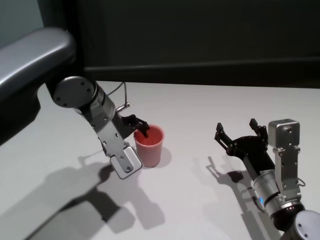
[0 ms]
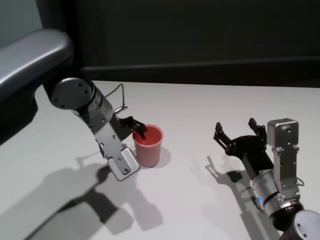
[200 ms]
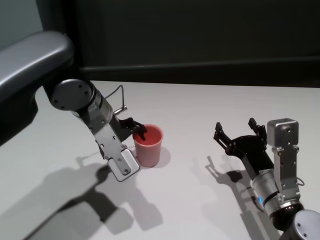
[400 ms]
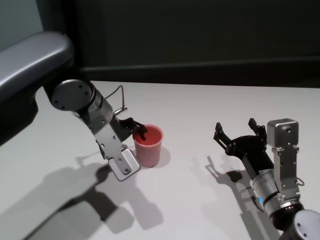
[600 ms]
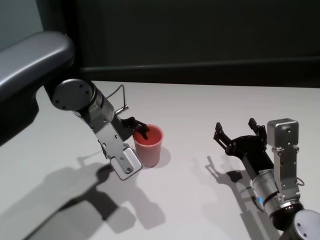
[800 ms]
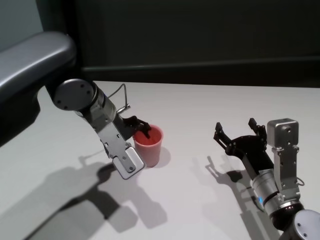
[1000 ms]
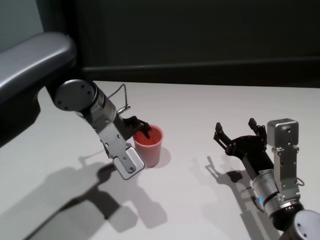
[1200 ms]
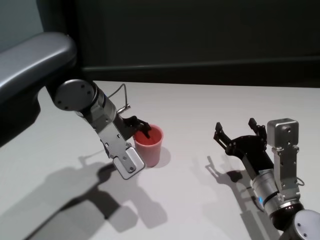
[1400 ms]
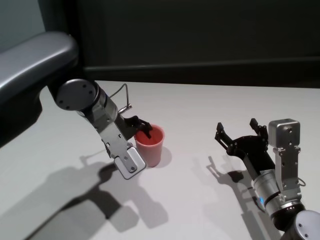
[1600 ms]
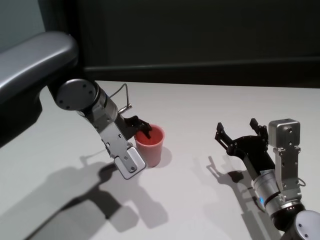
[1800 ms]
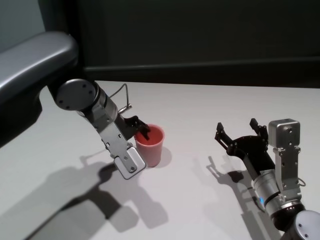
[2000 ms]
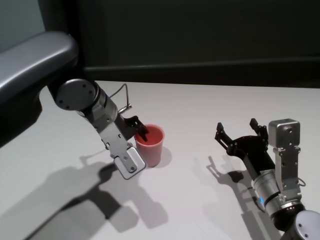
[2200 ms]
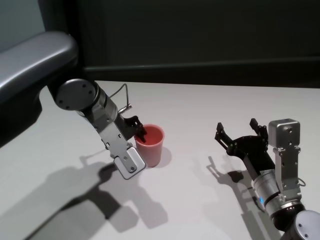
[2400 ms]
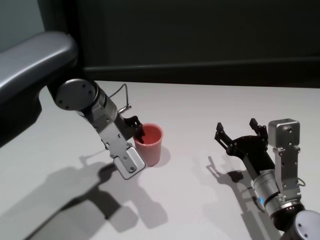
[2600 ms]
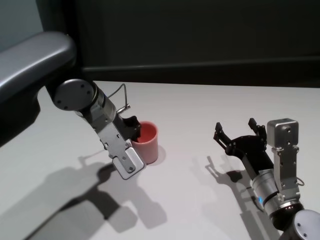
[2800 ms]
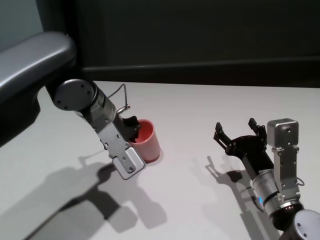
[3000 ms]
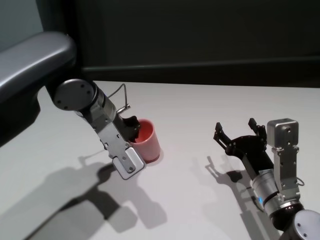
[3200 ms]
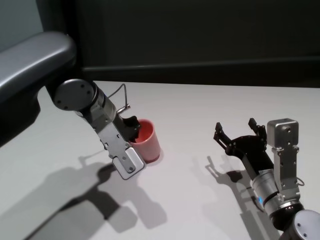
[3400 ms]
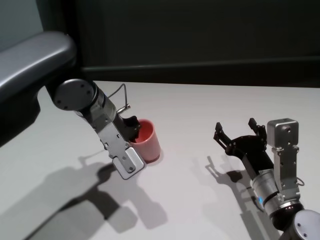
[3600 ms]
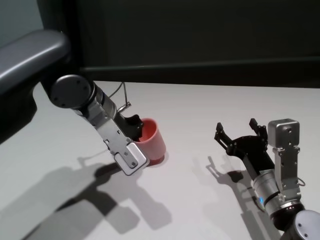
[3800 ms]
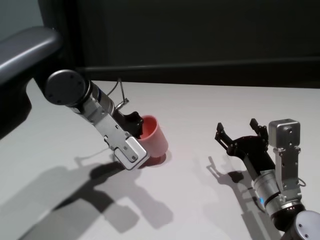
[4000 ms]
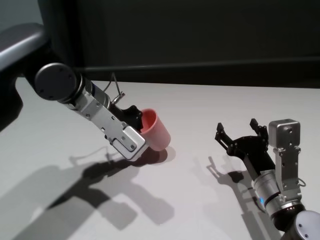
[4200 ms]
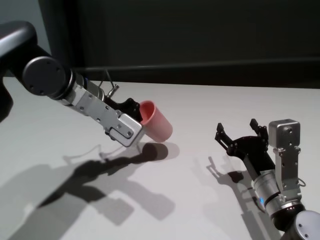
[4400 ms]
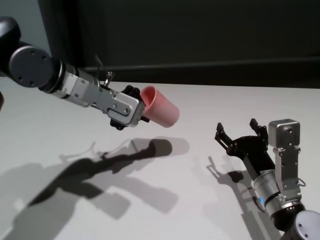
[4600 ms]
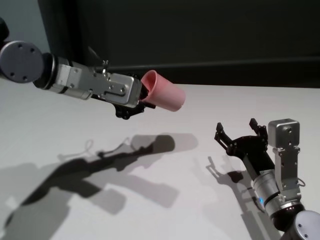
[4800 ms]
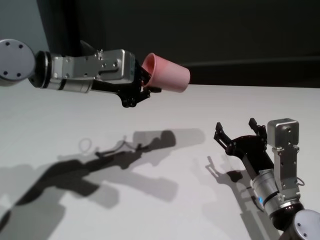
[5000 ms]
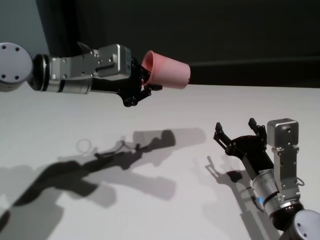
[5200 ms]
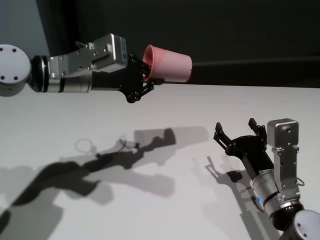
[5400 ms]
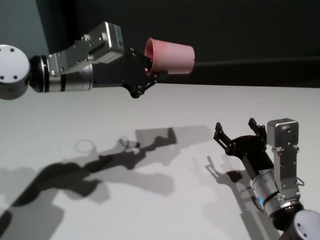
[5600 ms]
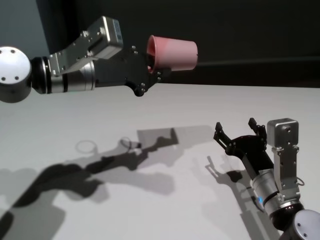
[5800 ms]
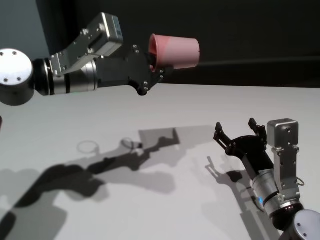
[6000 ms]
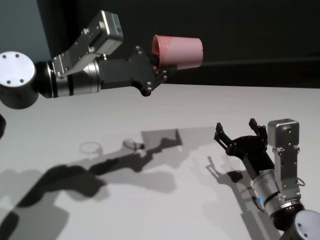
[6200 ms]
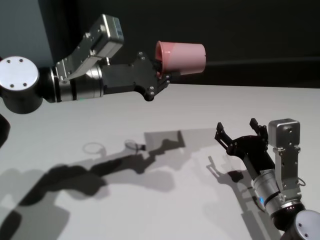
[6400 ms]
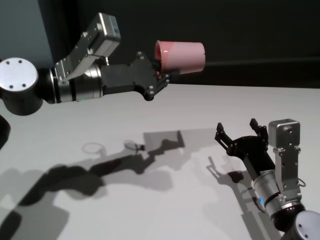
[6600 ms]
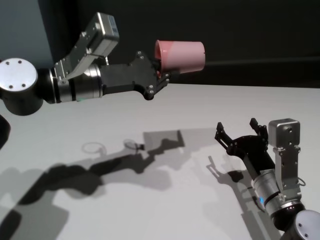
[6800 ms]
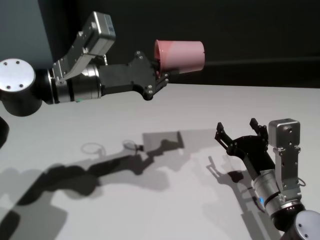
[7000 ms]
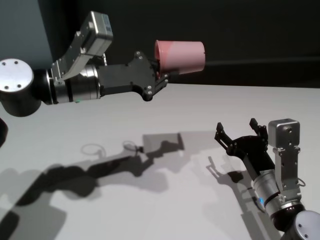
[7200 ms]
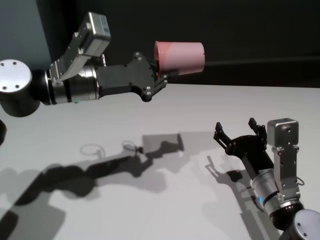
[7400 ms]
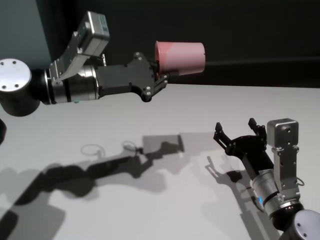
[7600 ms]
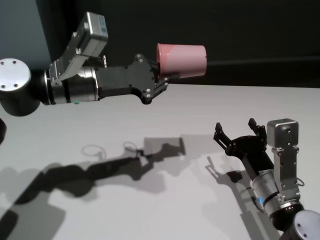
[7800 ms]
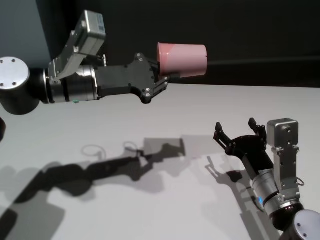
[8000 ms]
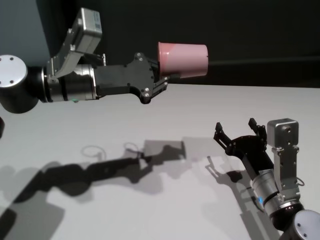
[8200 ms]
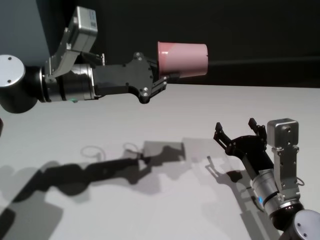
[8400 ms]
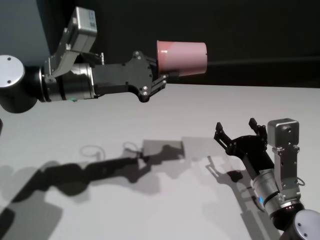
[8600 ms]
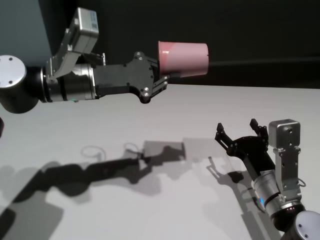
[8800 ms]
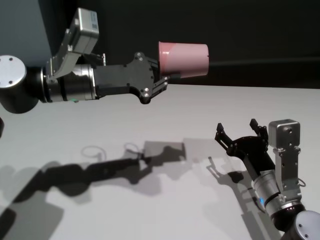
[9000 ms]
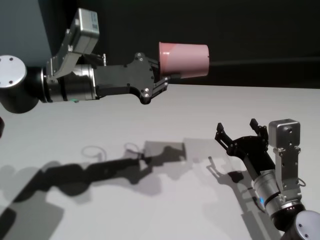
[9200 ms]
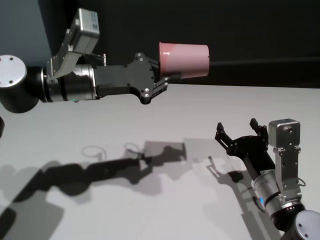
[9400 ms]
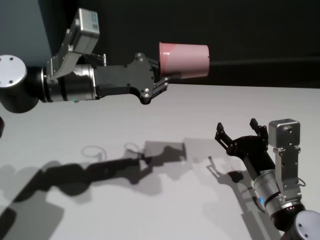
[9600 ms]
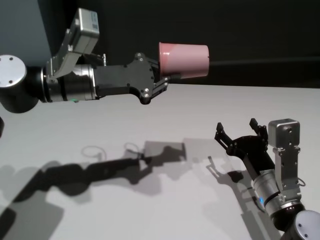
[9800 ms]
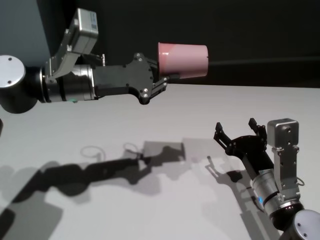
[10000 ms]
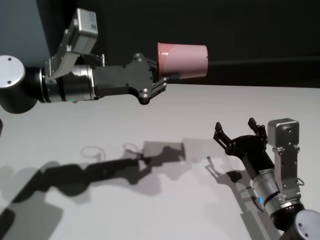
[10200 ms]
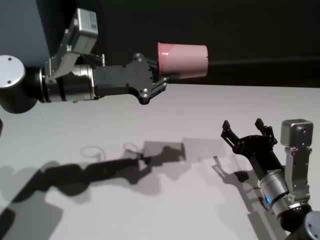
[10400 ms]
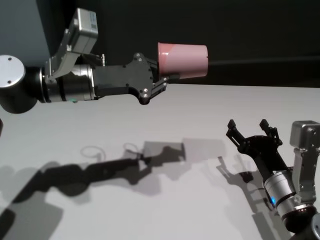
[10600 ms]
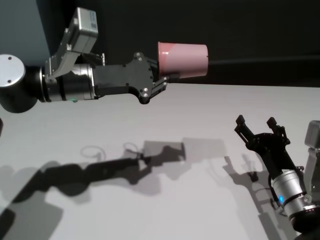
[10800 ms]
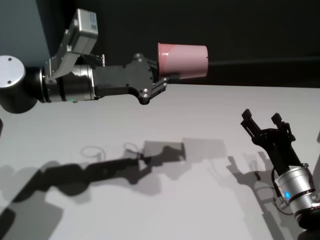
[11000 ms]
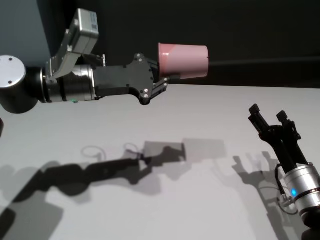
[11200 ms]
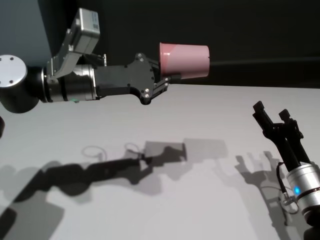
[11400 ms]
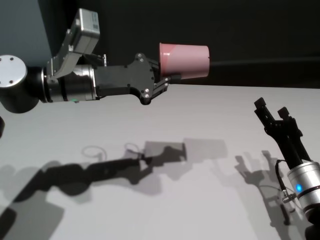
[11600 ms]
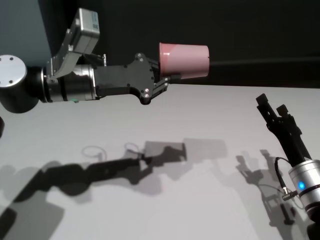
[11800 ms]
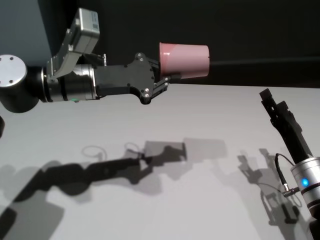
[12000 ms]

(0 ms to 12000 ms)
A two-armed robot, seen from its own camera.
Task of the whole recording: On the white table pick up the cup with one hand and transfer it to the other hand before turning it over.
Step, 0 ms - 3200 ms: Grasp the cup with left gripper.

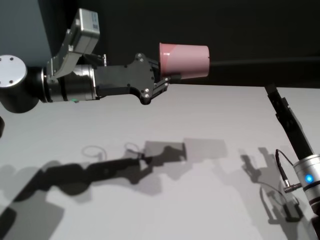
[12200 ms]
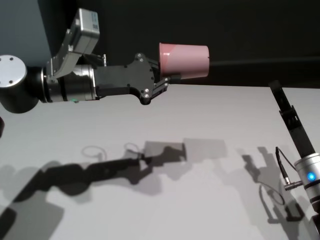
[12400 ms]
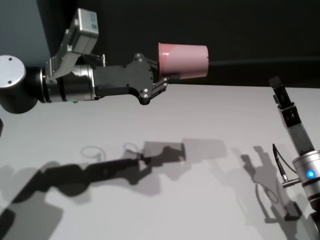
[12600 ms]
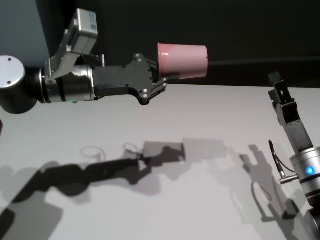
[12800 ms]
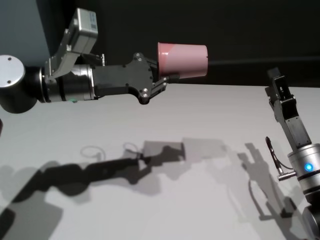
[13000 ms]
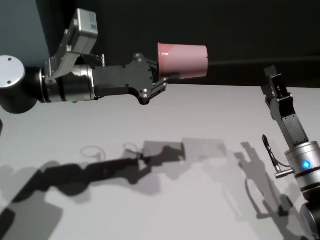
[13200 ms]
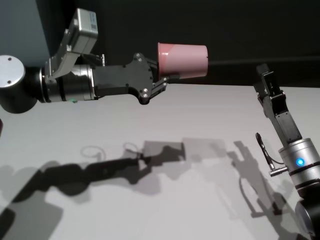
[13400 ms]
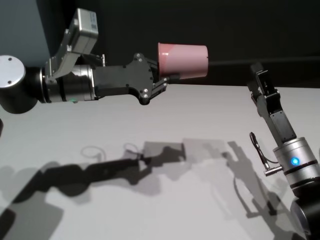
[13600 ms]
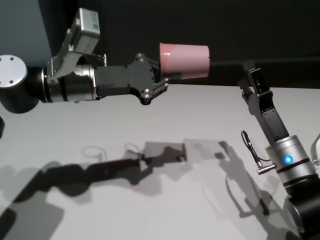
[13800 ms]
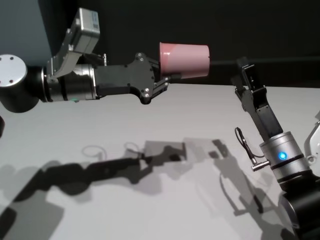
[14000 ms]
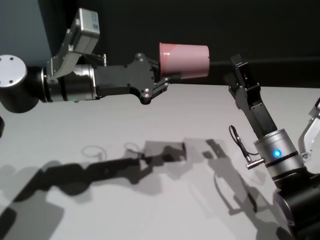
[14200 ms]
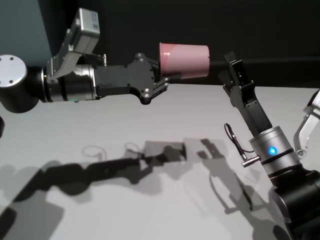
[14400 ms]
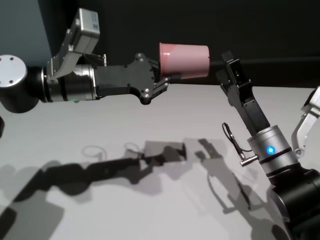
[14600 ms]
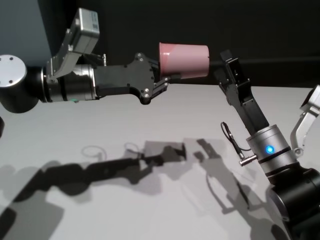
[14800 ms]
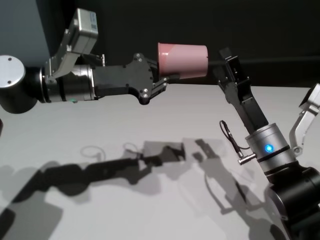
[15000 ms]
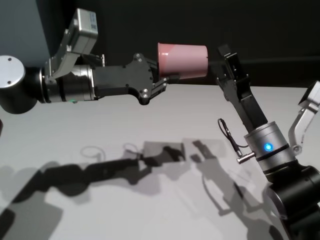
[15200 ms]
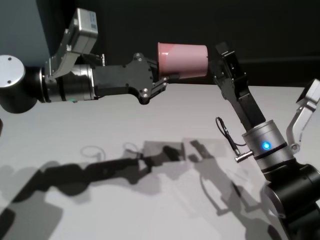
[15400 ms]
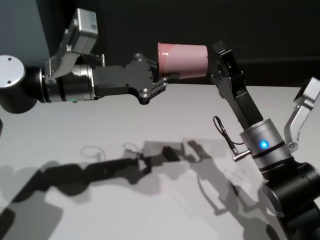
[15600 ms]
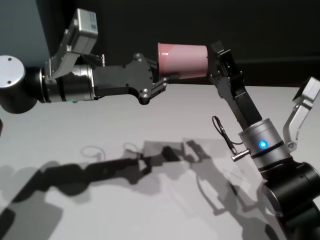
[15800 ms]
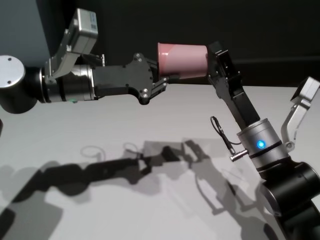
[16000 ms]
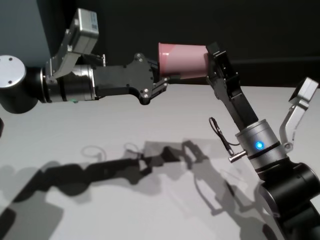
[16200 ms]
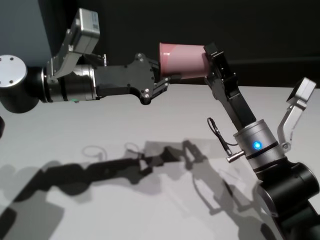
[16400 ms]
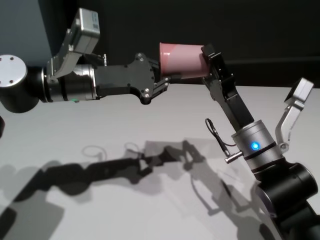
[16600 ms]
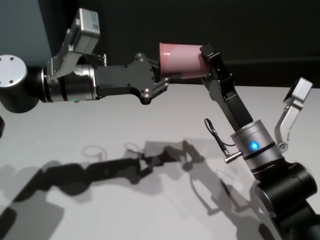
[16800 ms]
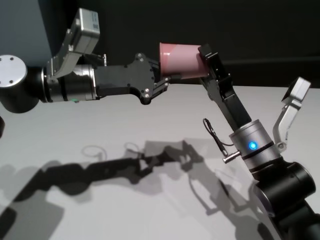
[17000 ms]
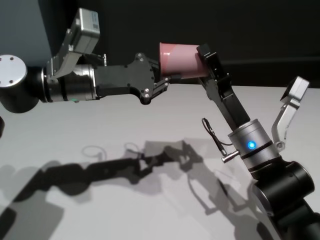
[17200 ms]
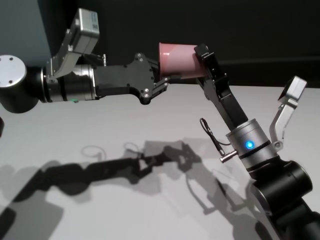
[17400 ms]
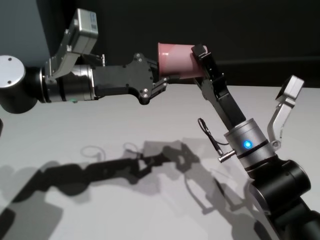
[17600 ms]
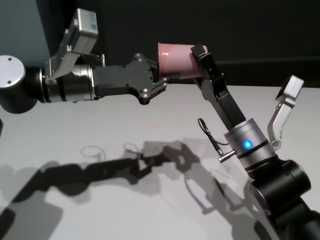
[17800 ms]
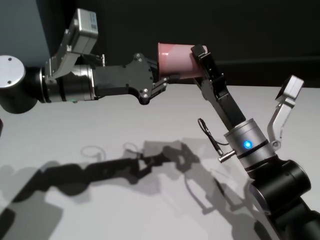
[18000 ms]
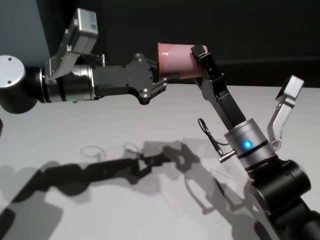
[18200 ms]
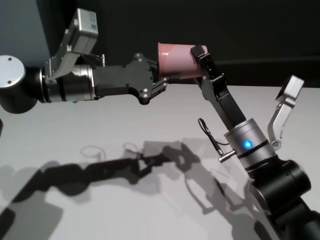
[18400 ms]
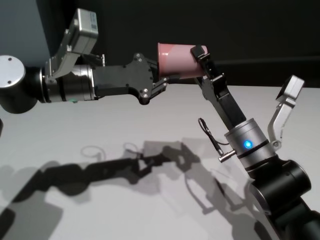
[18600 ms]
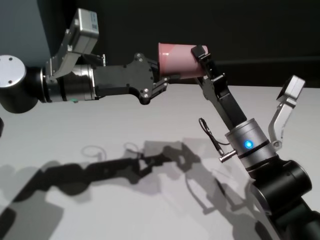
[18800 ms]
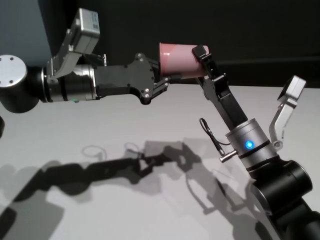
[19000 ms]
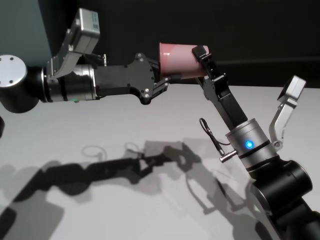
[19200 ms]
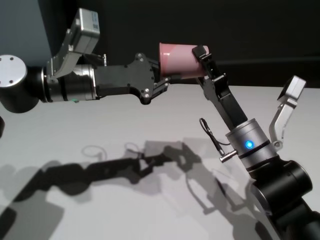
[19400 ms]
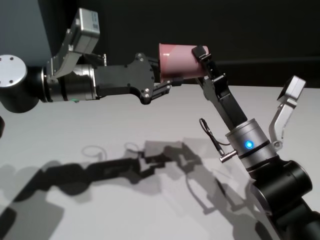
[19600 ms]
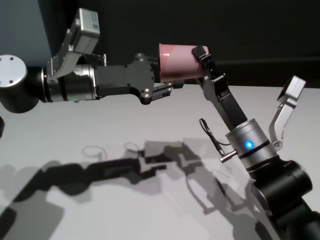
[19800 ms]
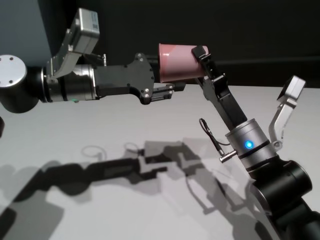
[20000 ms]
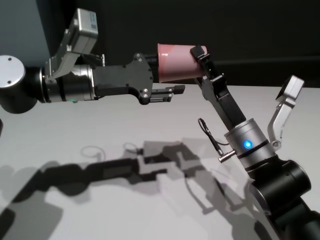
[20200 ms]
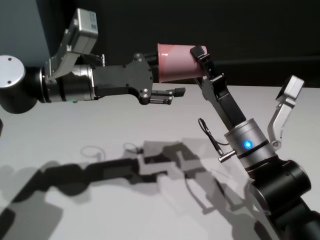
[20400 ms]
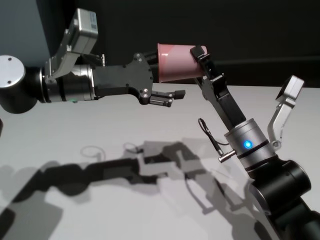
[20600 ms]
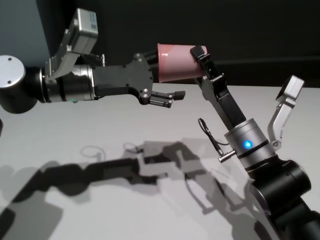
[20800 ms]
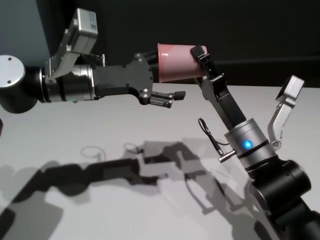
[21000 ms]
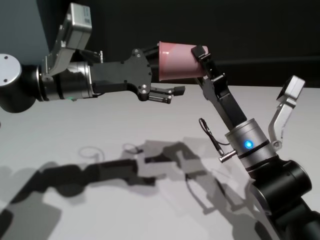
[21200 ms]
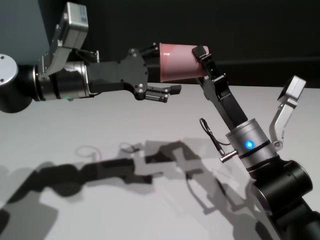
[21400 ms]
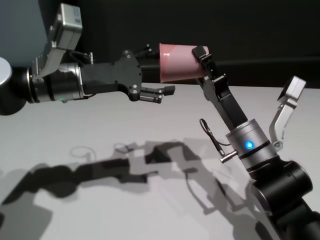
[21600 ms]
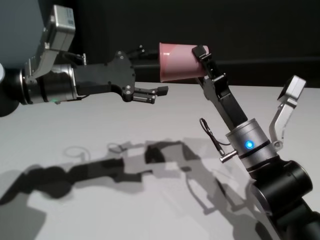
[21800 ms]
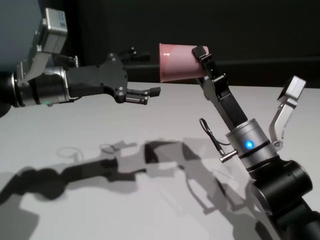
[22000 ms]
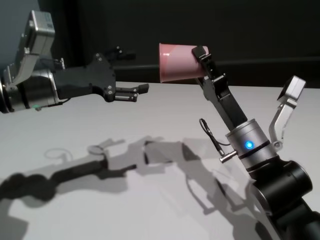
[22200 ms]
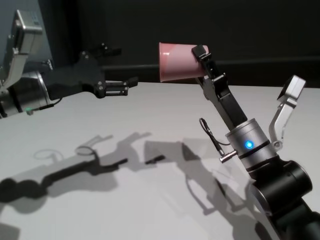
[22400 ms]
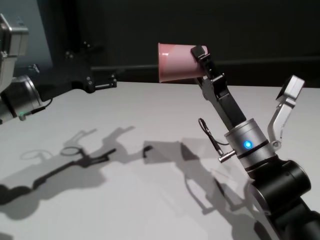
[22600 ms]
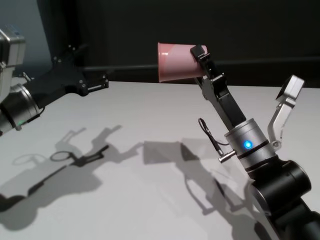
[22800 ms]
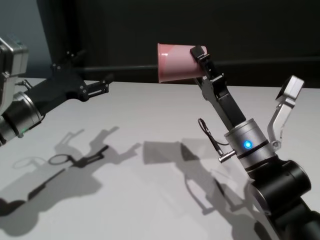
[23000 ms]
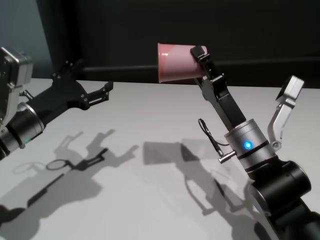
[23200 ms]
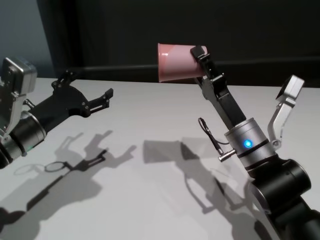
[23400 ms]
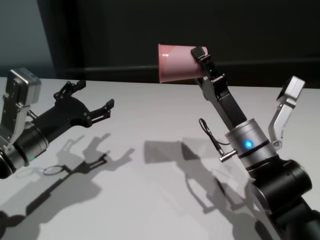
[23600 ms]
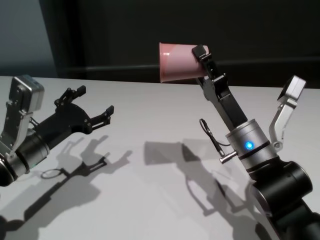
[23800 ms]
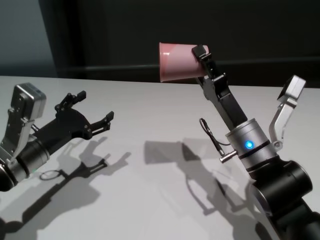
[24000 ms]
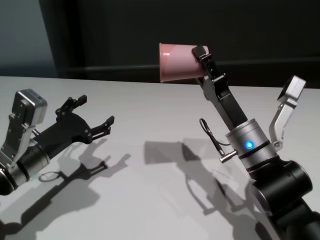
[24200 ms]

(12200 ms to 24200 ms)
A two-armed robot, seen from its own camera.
Task of the whole recording: On the white table pick up the cup with one hand and transfer it to the other hand before turning it over.
Step, 12200 ms - 21800 ms: Pass the cup to the right gripper.
